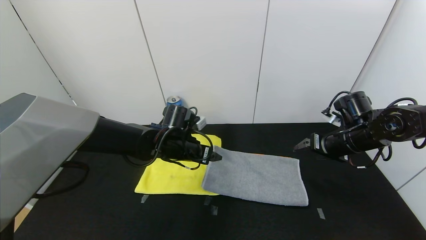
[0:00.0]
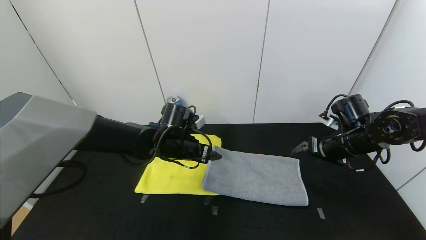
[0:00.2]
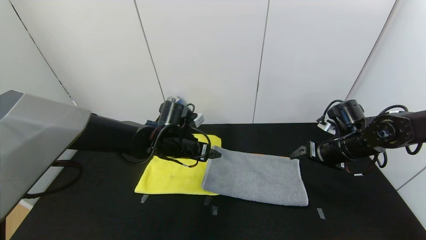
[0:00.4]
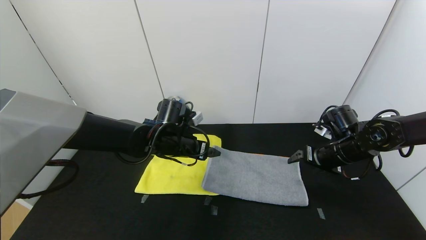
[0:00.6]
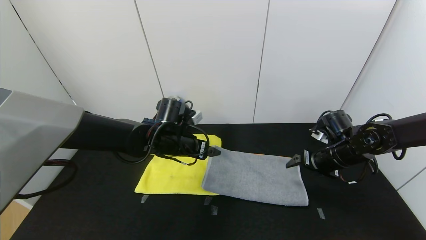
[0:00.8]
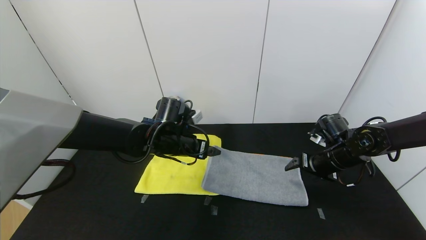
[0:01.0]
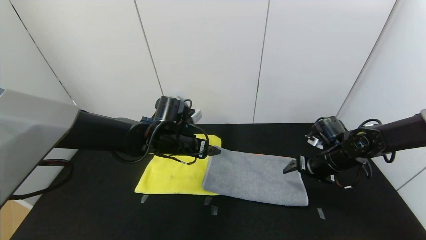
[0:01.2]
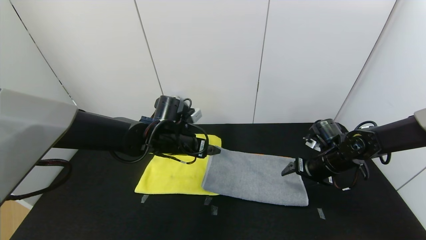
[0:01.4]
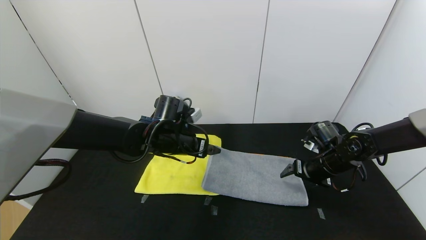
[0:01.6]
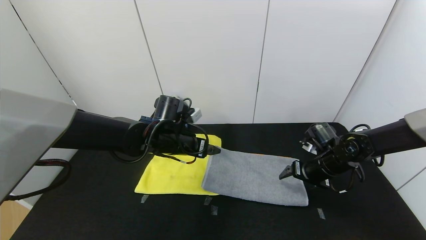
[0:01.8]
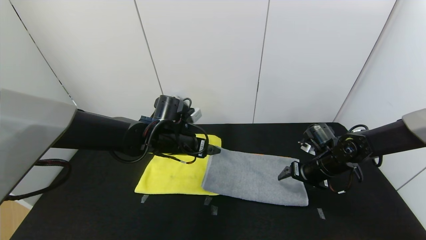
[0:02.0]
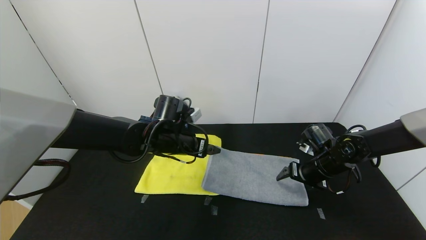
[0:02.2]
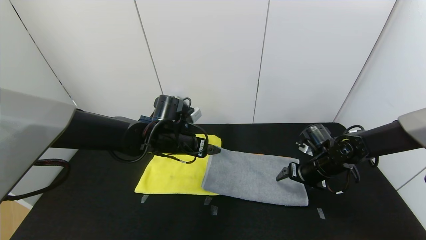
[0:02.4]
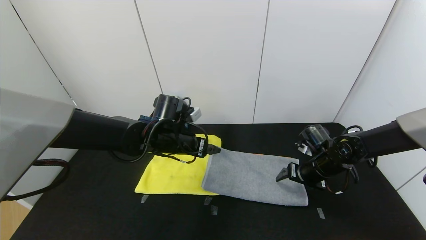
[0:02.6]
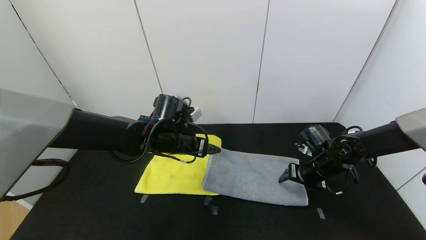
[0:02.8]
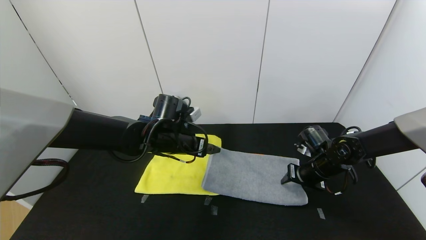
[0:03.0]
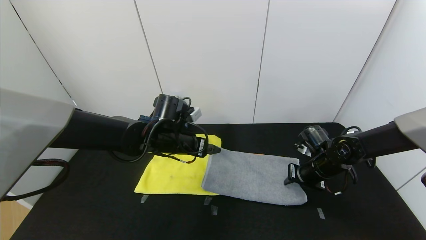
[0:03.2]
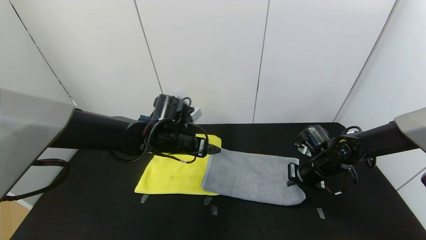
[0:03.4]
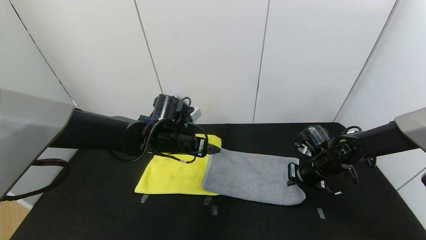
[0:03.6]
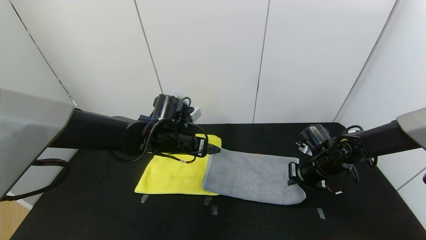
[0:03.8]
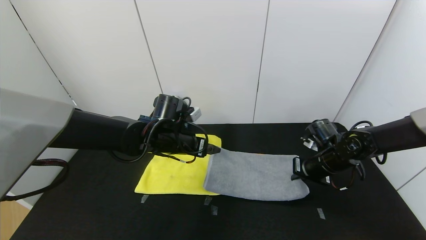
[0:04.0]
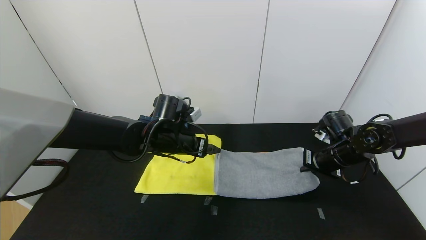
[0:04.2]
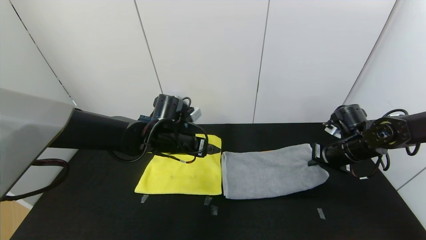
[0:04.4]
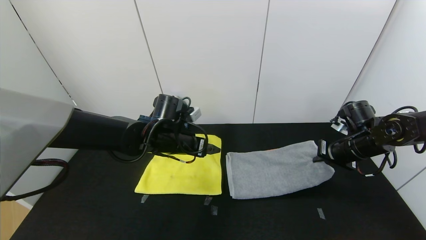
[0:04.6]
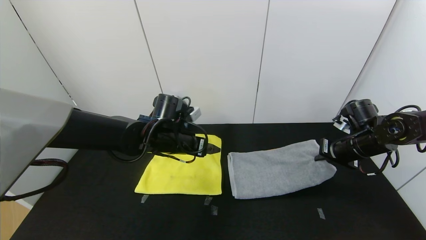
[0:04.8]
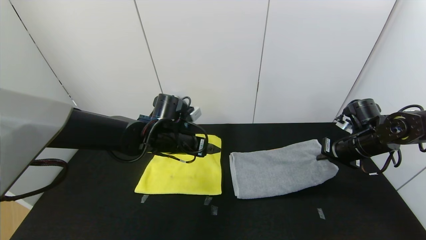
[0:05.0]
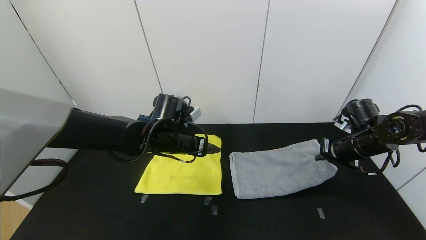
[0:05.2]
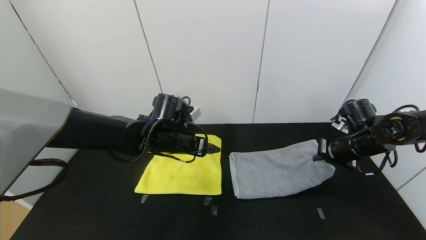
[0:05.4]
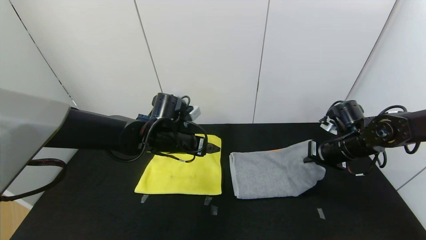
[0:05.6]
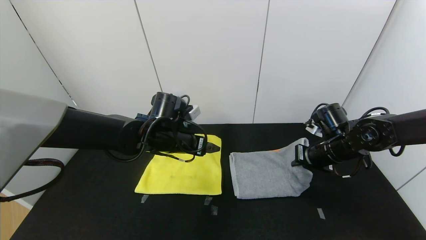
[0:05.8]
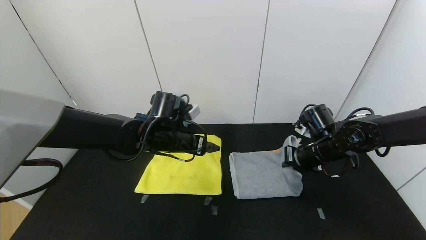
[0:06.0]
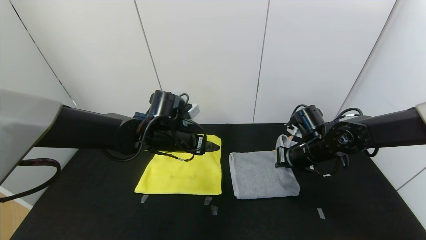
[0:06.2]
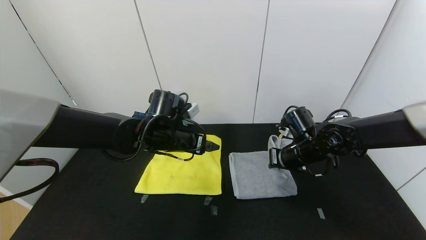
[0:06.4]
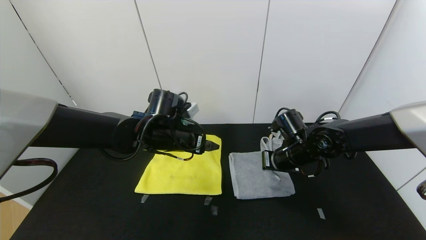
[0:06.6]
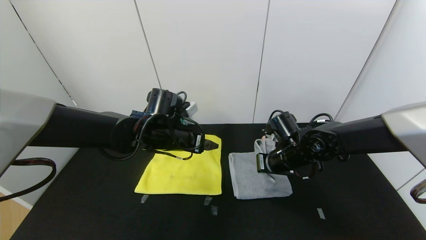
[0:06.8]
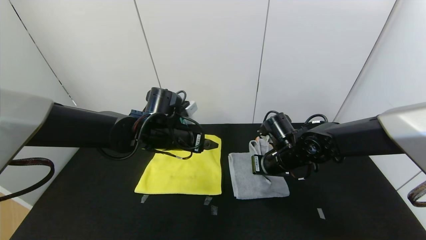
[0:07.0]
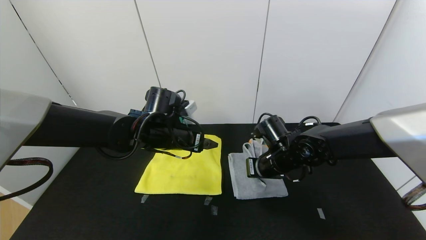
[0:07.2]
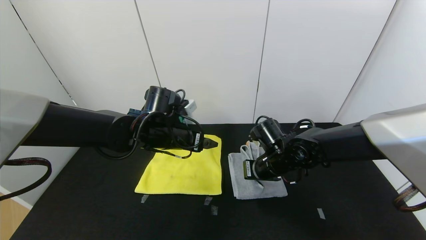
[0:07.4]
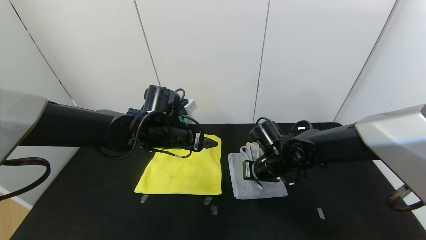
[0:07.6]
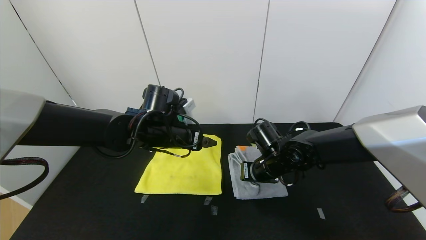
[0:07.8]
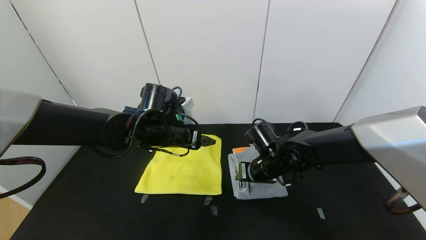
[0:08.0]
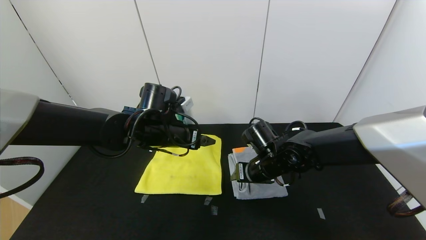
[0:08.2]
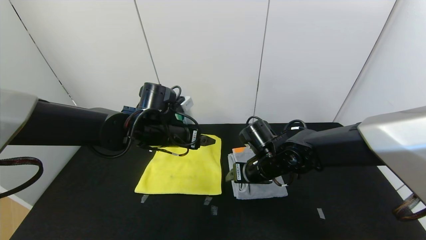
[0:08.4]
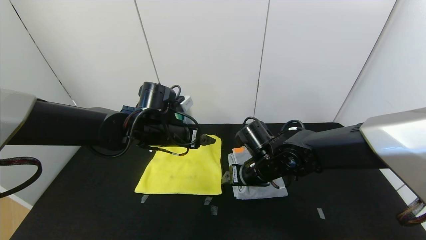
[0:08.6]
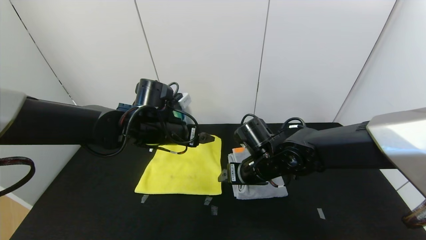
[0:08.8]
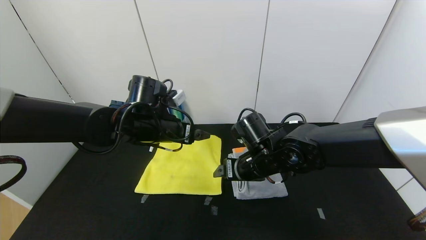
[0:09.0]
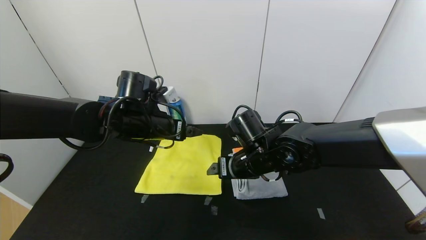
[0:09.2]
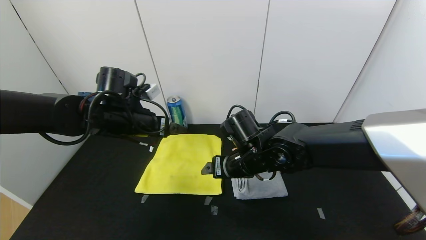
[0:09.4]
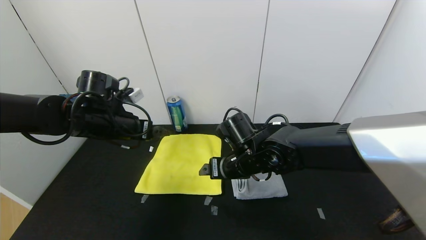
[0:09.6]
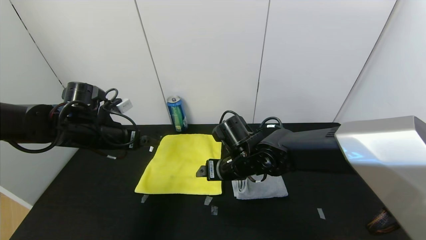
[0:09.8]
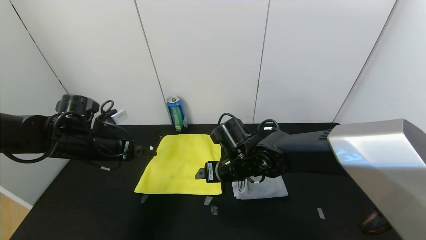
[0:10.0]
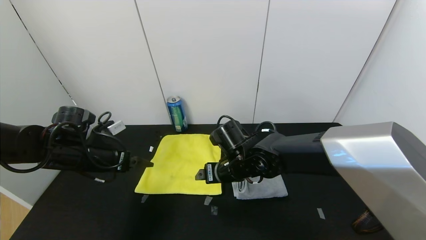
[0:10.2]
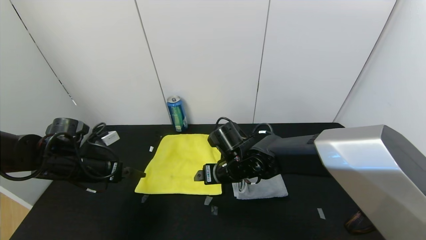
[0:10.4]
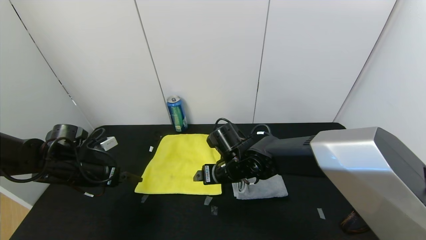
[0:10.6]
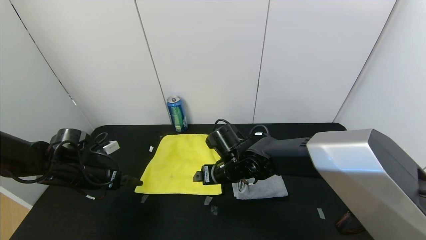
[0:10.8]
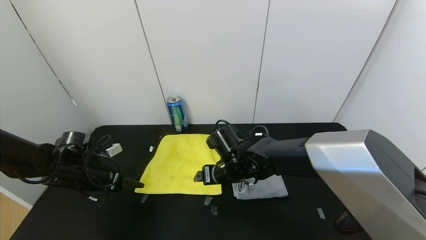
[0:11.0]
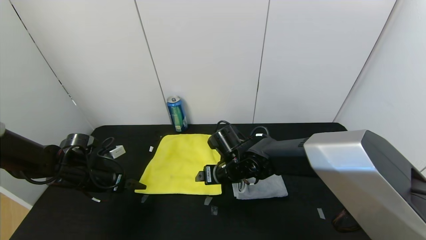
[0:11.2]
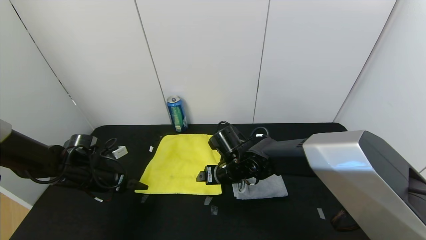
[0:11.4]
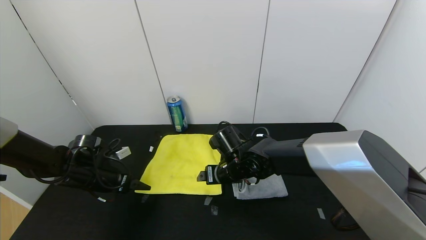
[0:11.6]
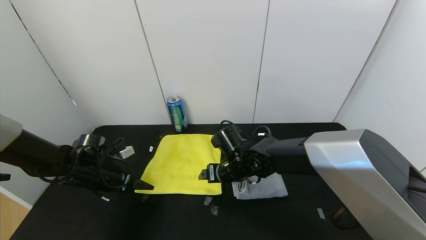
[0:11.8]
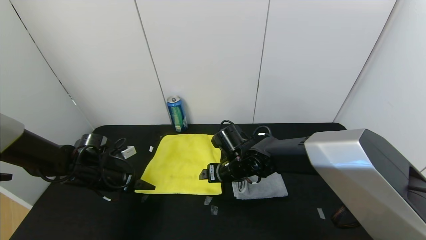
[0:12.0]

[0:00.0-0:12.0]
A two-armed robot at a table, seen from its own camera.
Task of the whole recording: Use the gripper to fold the yellow towel and grey towel in half twice,then put the yellow towel on the grey towel.
Step, 0:00.0 to 0:08.4: Fold the gray towel from right to left with right gripper.
0:00.0 to 0:01.6: The right gripper travels downward by about 10 cm.
0:01.6 to 0:03.0: The right gripper closes.
0:03.0 to 0:04.4: The right gripper travels to the right and upward by some 10 cm, and closes its fingers.
0:04.4 to 0:06.0: The right gripper is displaced to the left by about 10 cm.
0:06.0 to 0:07.6: The right gripper is displaced to the left by roughly 10 cm.
0:07.6 to 0:09.0: The right gripper ends up some 5 cm from where it was, and opens.
0:09.0 to 0:10.4: The left gripper is displaced to the left and downward by some 20 cm. Meanwhile the right gripper shifts by some 5 cm.
0:10.4 to 0:12.0: The left gripper travels downward by approximately 5 cm.

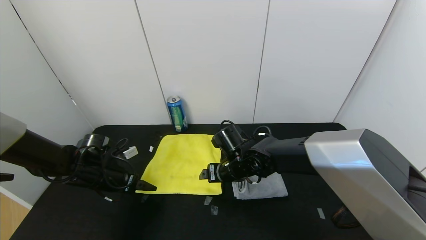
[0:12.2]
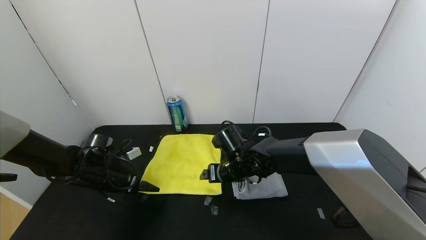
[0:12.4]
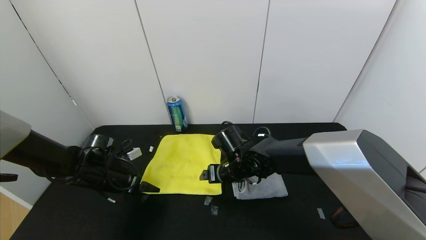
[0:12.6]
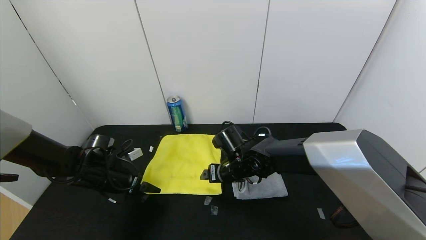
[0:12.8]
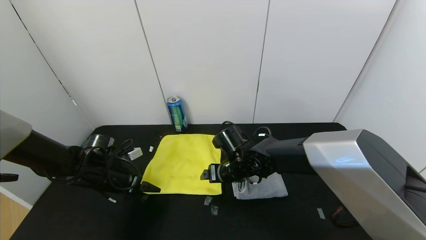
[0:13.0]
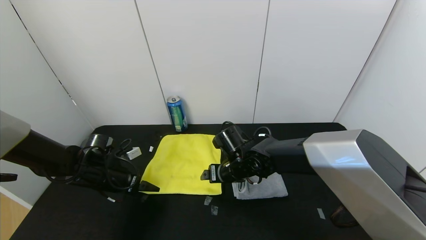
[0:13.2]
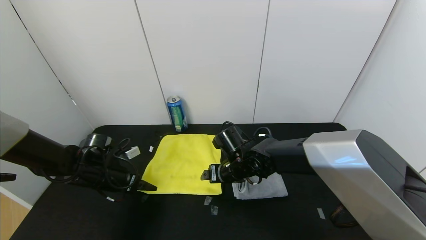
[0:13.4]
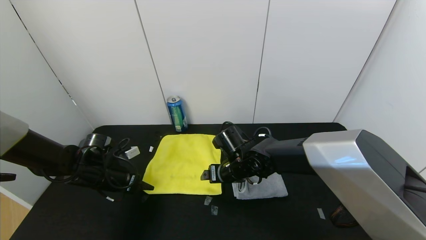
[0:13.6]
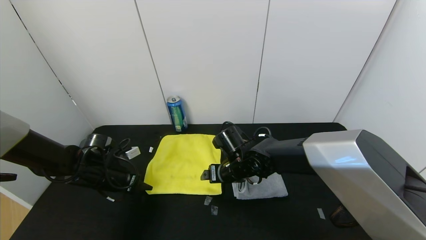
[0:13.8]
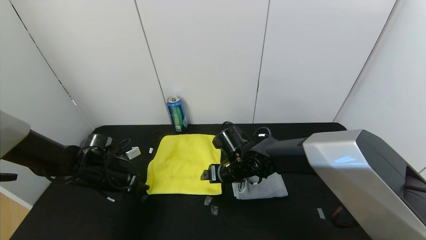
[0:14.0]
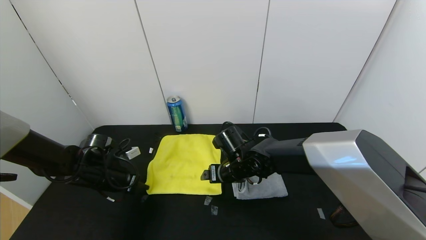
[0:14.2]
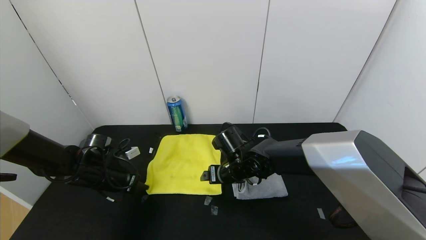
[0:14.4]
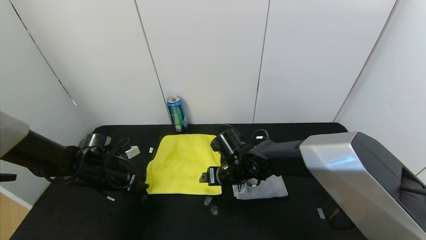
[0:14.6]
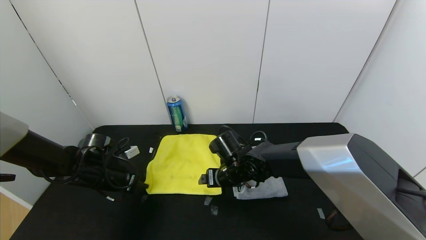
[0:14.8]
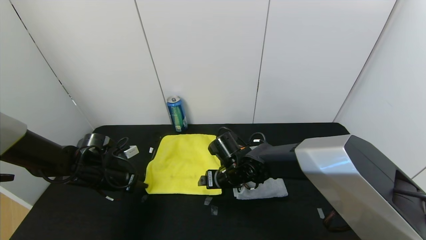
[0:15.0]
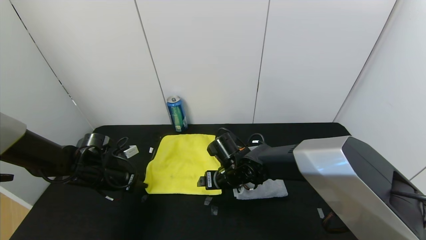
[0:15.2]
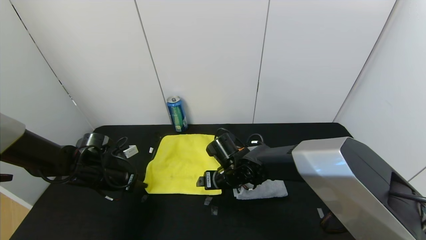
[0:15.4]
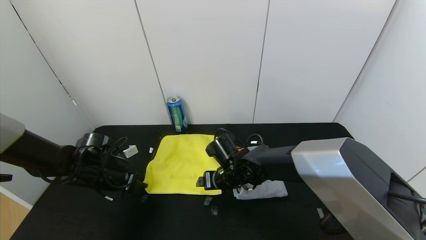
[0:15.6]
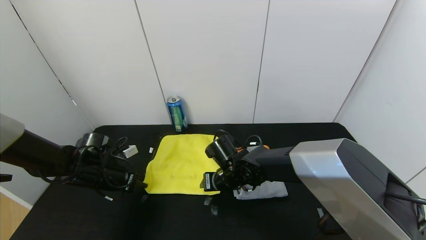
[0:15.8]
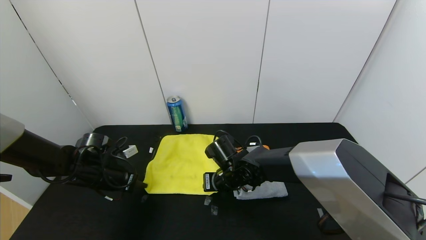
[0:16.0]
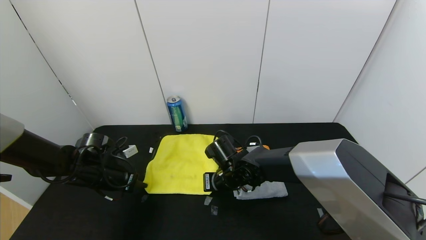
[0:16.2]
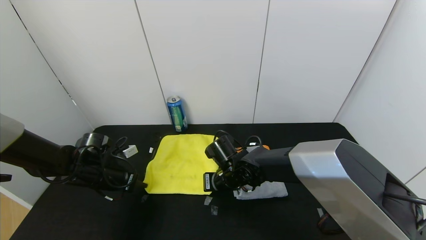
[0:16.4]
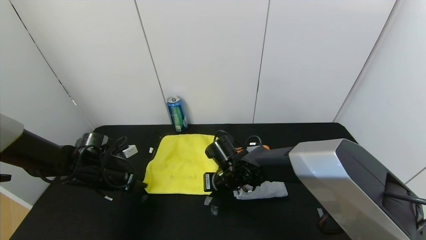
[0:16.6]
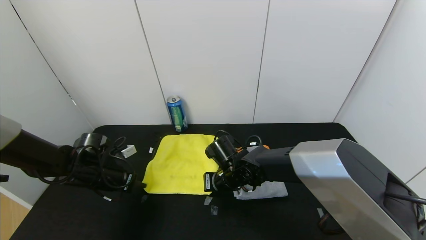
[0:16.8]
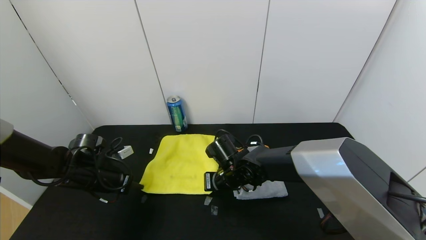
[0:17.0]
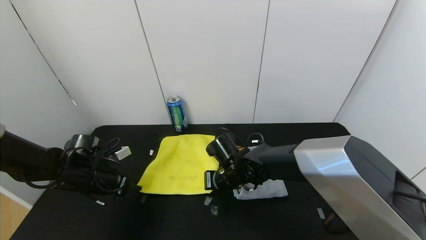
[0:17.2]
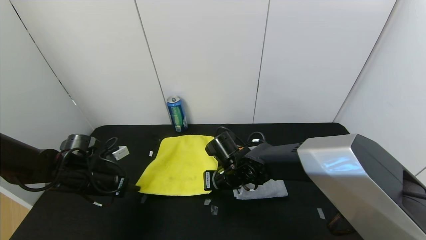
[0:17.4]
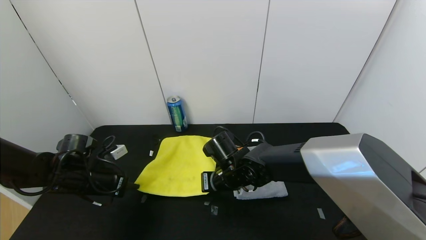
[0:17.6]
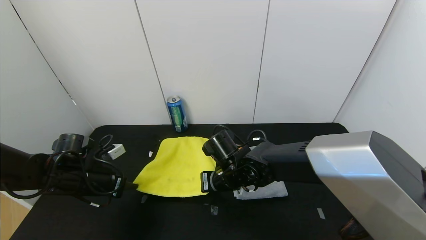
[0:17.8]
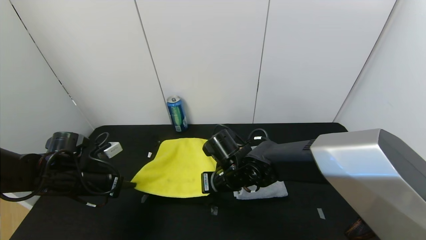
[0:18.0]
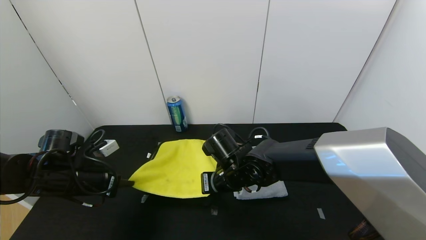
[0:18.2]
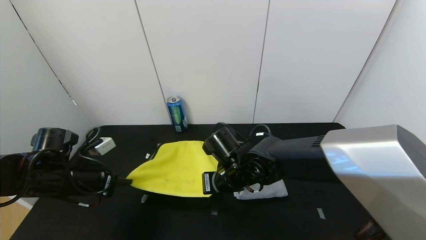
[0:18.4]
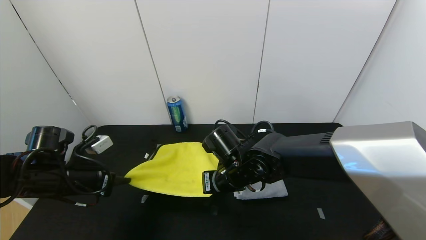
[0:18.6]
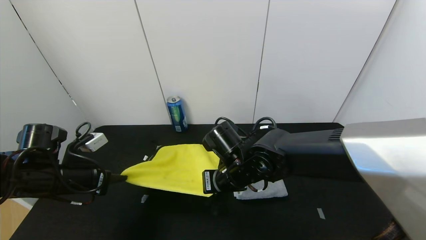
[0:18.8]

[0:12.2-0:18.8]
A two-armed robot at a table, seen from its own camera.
Task of the whole recording: Use the gripper to fold the yellow towel and grey towel in half twice,then put the yellow towel on the grey towel.
0:12.2 to 0:13.8: The left gripper closes its fingers.
0:13.8 to 0:15.4: There are only small adjustments of the grippers.
0:15.4 to 0:17.2: The right gripper closes its fingers.
0:17.2 to 0:18.8: Both grippers move upward and backward, approximately 10 cm.
